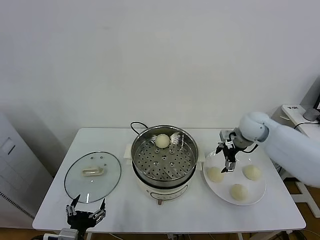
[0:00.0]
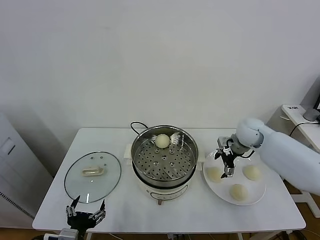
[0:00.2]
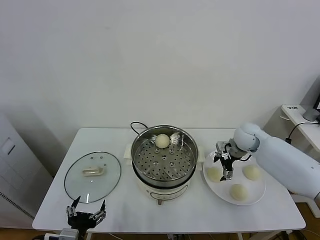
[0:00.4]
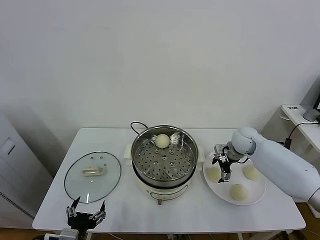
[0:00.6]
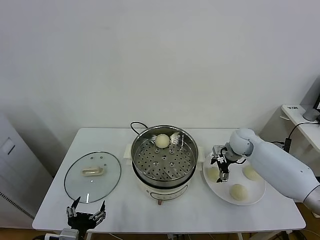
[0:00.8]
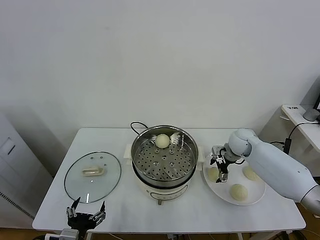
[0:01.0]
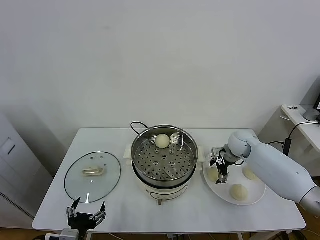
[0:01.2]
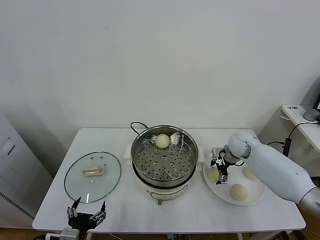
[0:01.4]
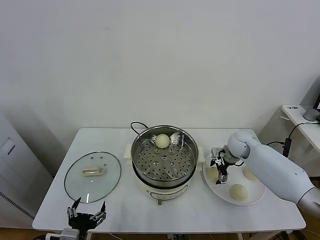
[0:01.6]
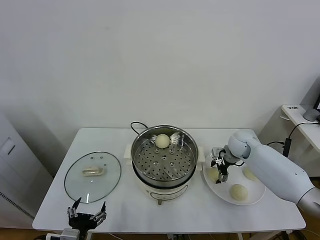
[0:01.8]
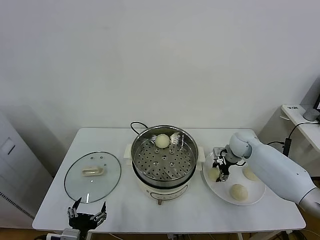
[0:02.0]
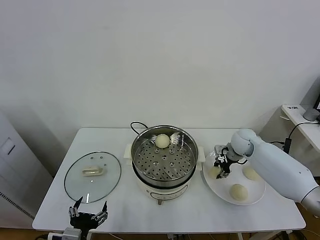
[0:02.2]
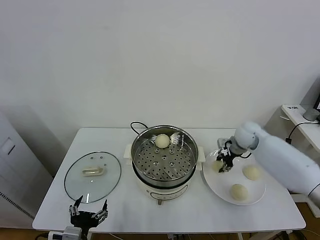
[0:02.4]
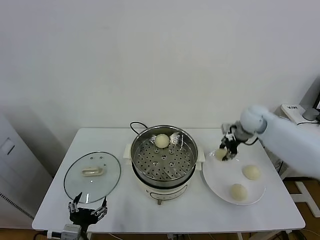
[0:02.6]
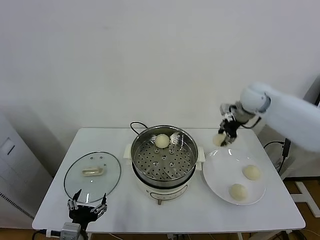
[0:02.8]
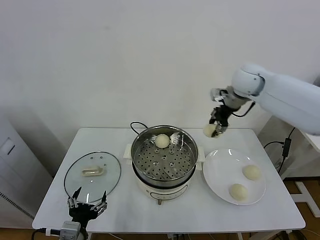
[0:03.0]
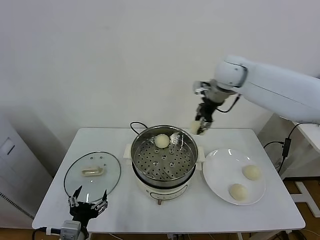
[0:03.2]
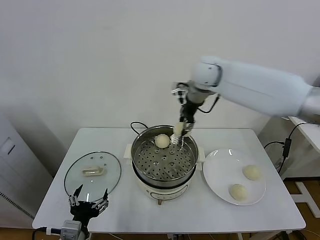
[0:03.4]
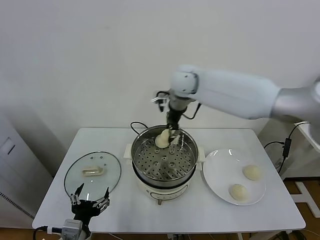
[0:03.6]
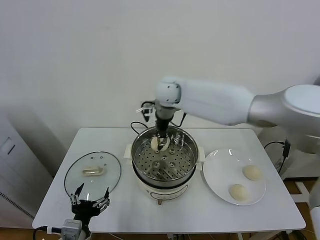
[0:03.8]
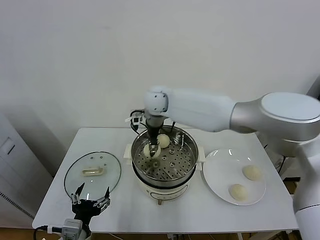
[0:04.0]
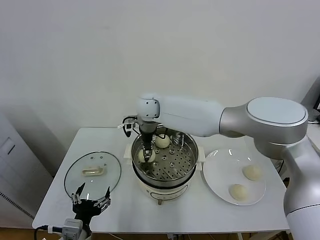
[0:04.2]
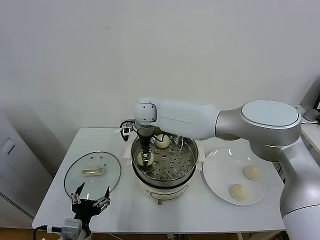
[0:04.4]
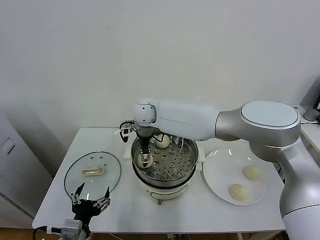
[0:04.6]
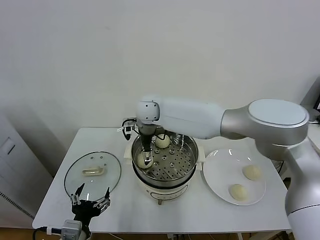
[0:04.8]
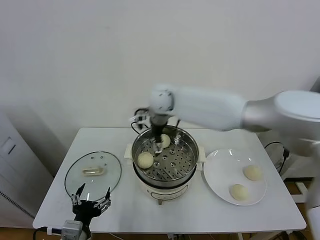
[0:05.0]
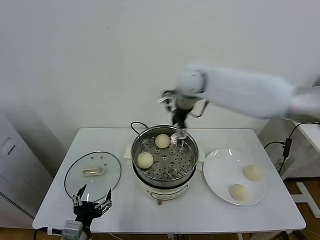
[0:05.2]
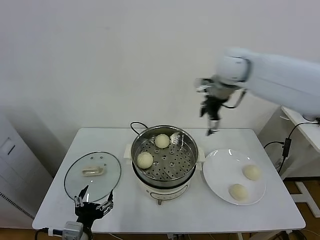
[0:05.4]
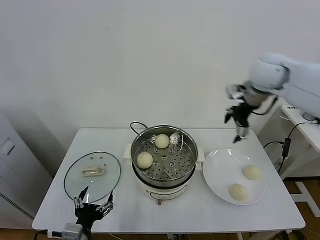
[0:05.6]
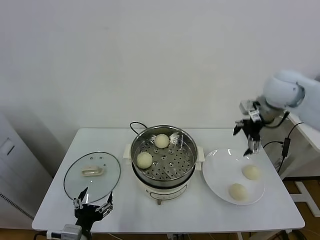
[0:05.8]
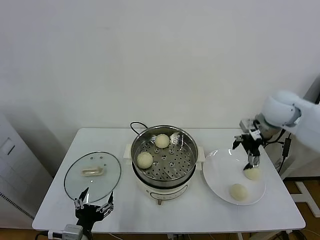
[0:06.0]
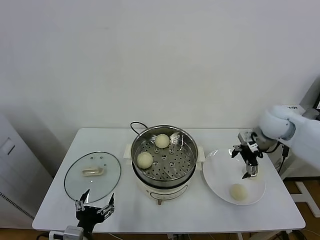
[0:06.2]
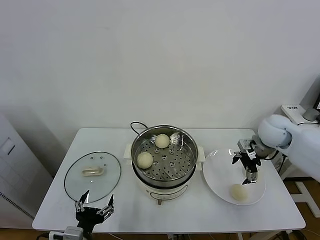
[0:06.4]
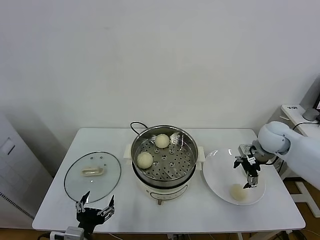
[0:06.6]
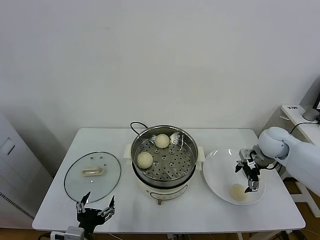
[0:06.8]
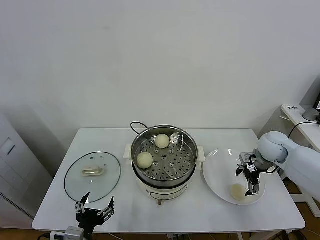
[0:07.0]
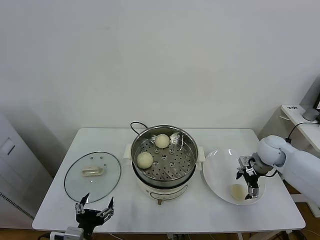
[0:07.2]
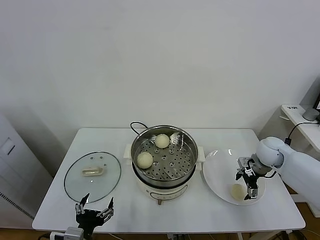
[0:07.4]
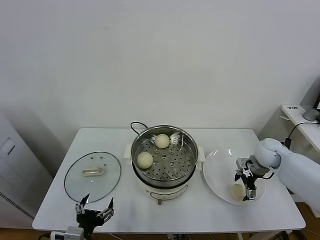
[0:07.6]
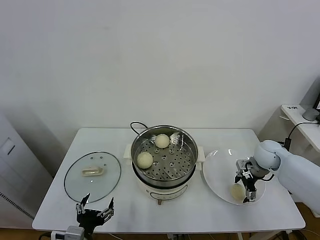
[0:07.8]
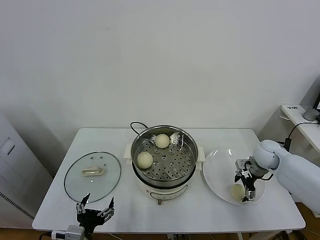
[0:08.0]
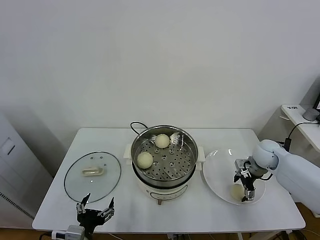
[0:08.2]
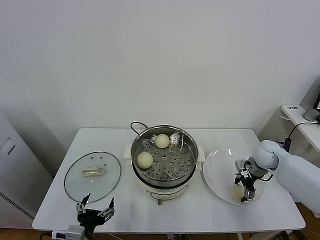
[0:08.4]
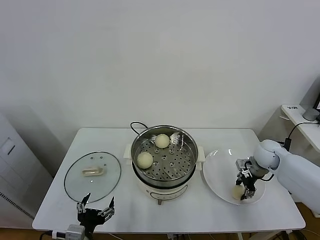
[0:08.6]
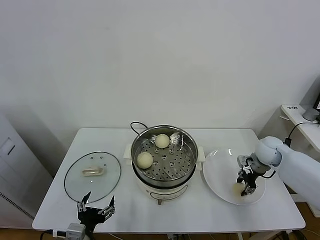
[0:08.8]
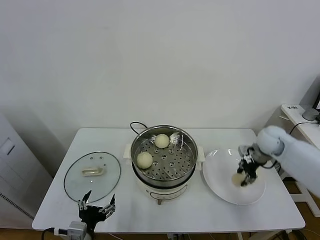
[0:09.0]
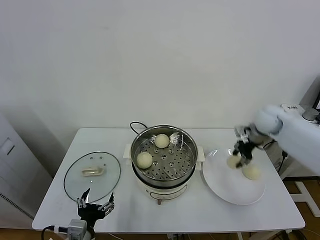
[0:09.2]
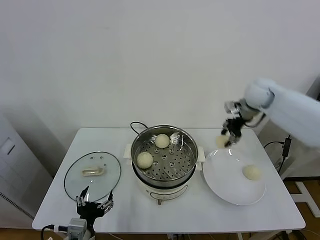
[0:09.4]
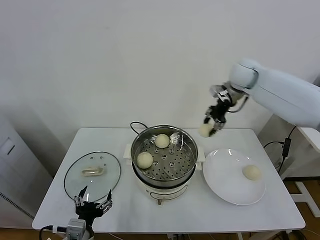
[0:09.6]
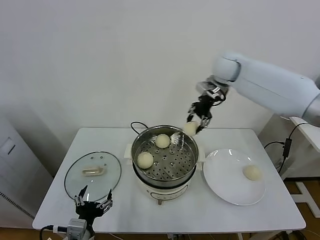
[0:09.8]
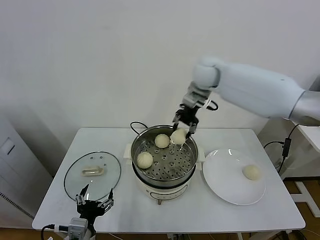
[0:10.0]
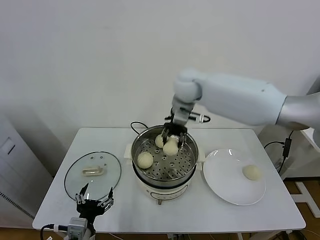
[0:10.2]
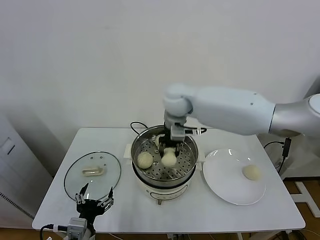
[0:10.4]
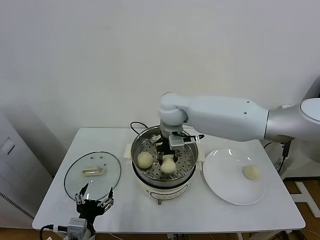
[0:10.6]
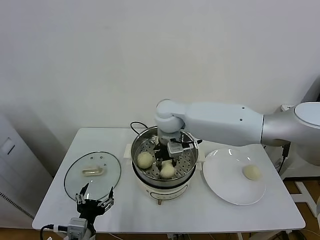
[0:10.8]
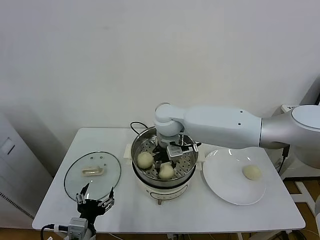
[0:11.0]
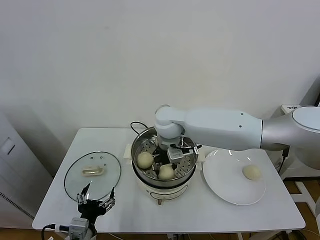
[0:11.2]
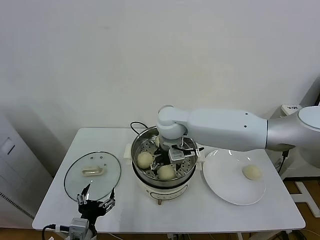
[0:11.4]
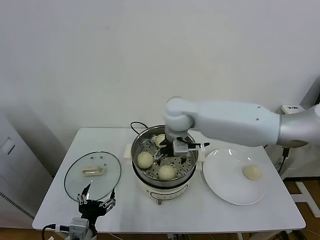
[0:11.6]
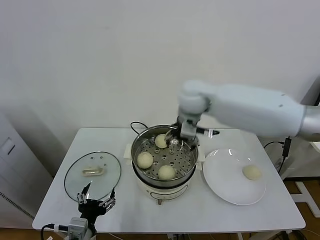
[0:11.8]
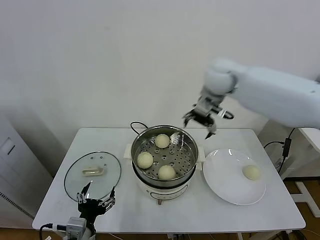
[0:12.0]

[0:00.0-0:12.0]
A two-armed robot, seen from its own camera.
Task of the whole recording: take steamed baozi put them in steamer.
Step, 0.0 to 2.0 s: Grasp the baozi in the plate with right gripper.
Step, 2.4 to 4.8 s: Place the baozi on the steamer with right gripper.
Step, 5.0 to 8.6 s: Grasp the baozi in the plate with right gripper.
Step, 9.0 to 11.6 s: Place the baozi on the steamer with right gripper.
0.0 to 1.6 s: The right gripper moves downward, about 10 cm.
1.6 to 3.0 s: The right gripper is displaced upward by about 30 cm, and closes up.
3.0 to 4.4 s: The right gripper shifts roughly 30 cm to the left and downward, and opens up.
4.4 to 6.0 s: The right gripper goes roughly 40 cm to the right, and opens up.
6.0 to 7.6 s: The right gripper goes roughly 20 cm downward.
7.6 to 9.0 s: The right gripper goes about 5 cm upward, and closes up.
9.0 to 10.4 s: The right gripper moves to the left, roughly 35 cm.
10.4 to 12.0 s: The right gripper is displaced to the right and upward by roughly 15 cm, and opens its fingers.

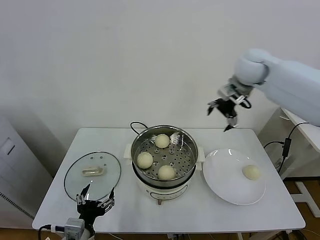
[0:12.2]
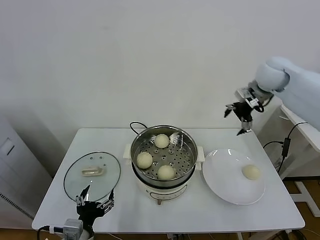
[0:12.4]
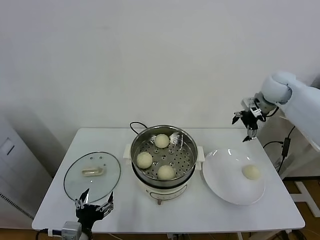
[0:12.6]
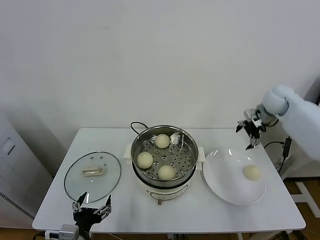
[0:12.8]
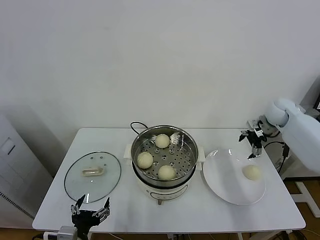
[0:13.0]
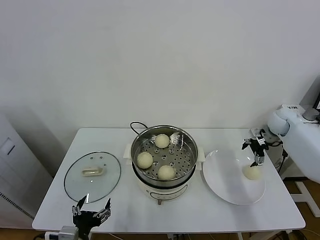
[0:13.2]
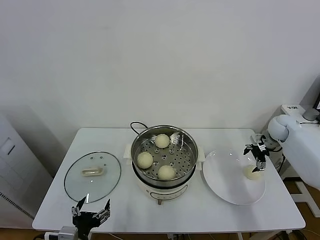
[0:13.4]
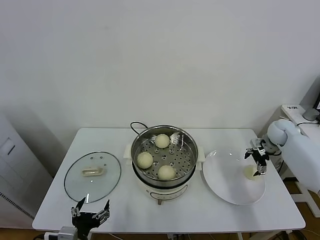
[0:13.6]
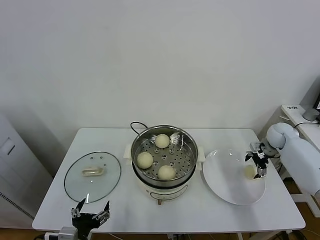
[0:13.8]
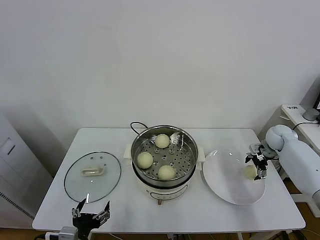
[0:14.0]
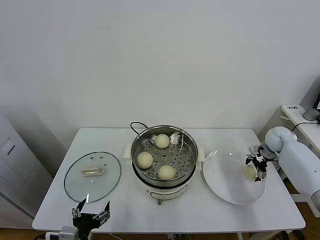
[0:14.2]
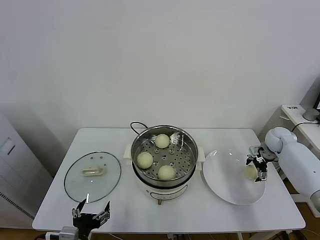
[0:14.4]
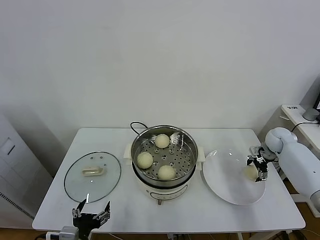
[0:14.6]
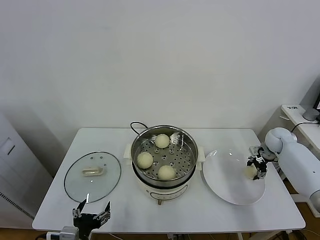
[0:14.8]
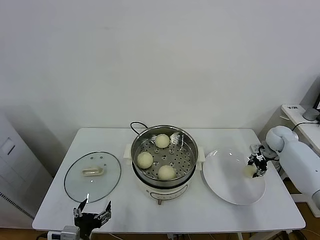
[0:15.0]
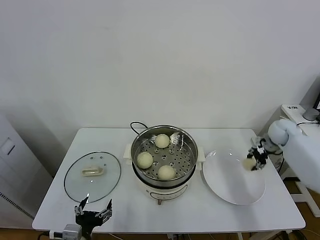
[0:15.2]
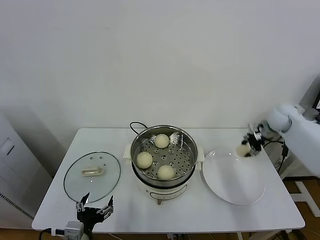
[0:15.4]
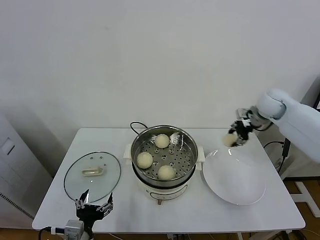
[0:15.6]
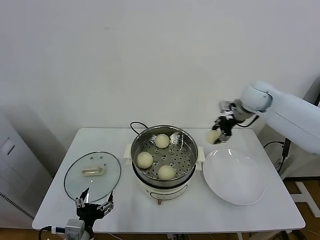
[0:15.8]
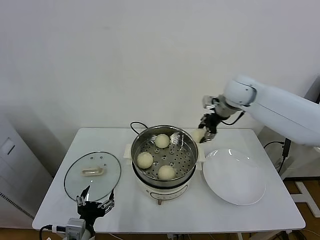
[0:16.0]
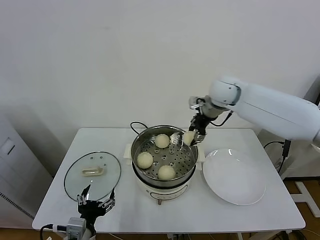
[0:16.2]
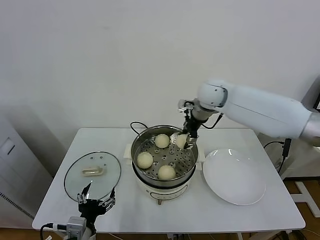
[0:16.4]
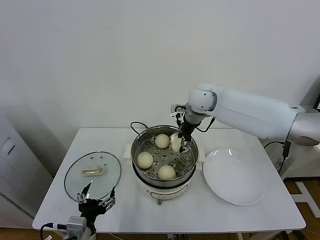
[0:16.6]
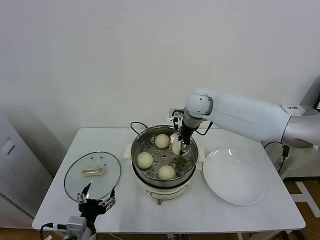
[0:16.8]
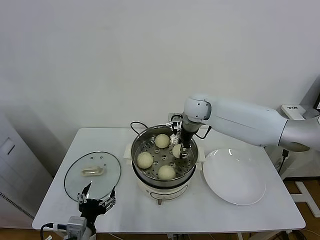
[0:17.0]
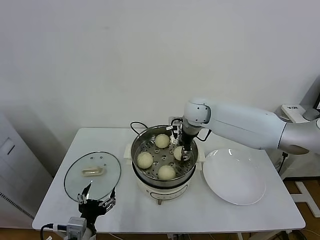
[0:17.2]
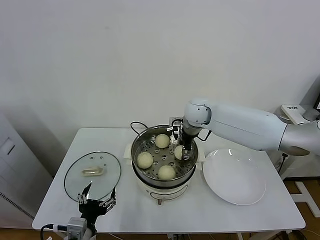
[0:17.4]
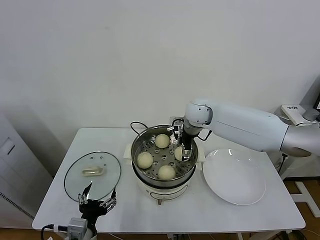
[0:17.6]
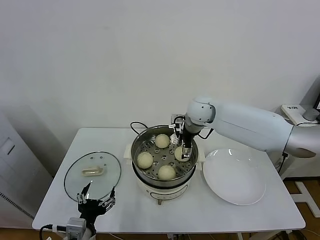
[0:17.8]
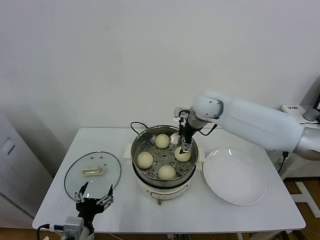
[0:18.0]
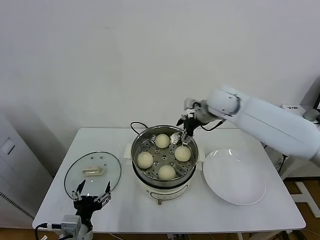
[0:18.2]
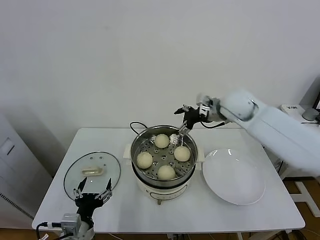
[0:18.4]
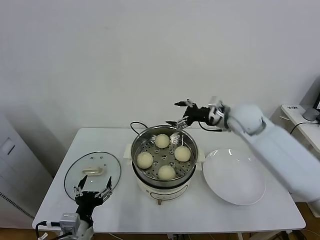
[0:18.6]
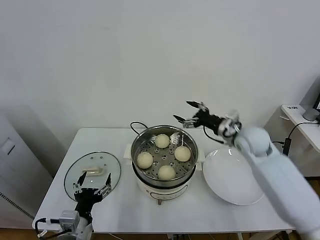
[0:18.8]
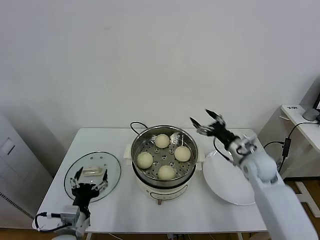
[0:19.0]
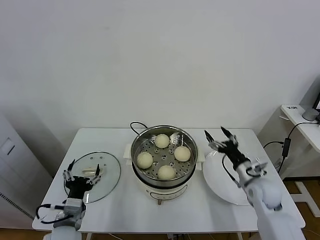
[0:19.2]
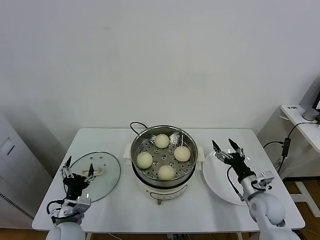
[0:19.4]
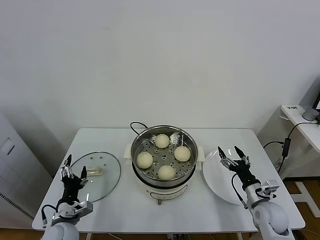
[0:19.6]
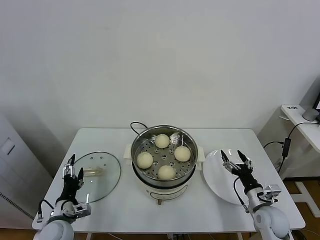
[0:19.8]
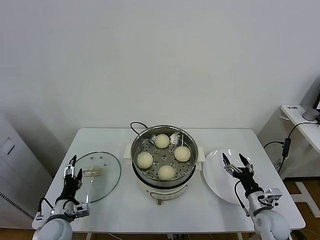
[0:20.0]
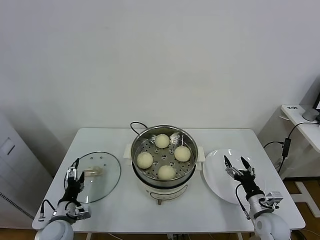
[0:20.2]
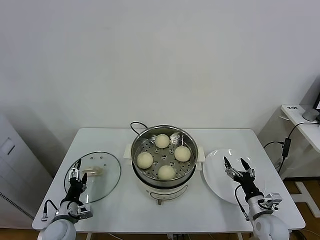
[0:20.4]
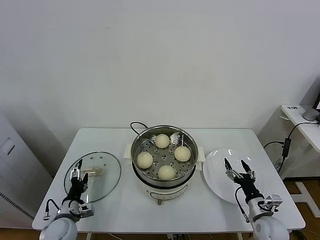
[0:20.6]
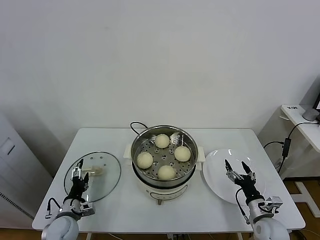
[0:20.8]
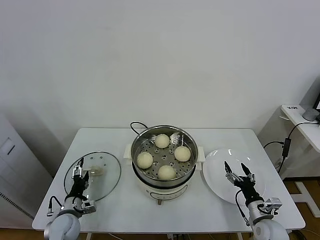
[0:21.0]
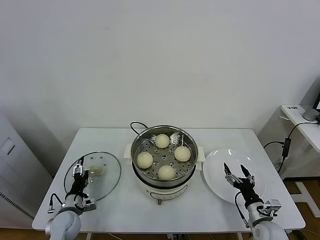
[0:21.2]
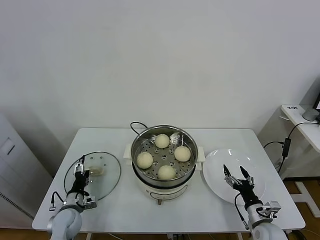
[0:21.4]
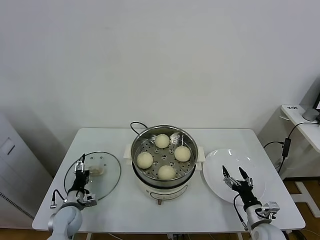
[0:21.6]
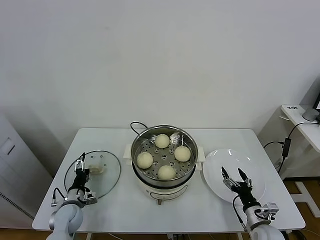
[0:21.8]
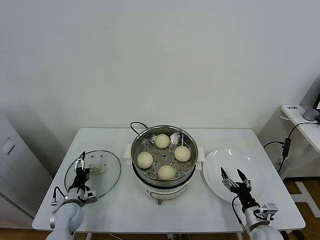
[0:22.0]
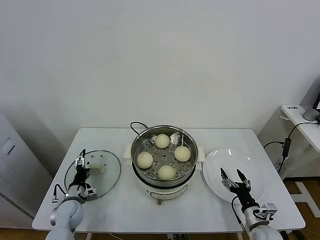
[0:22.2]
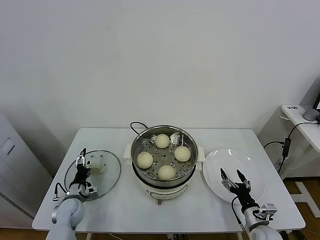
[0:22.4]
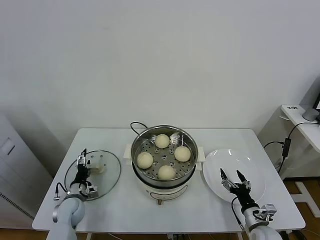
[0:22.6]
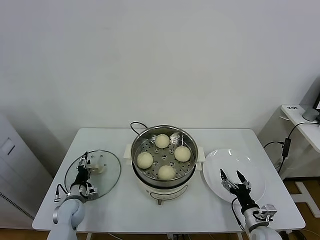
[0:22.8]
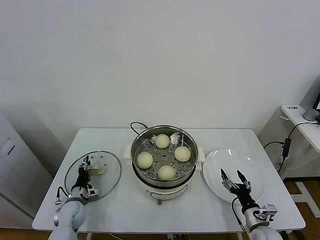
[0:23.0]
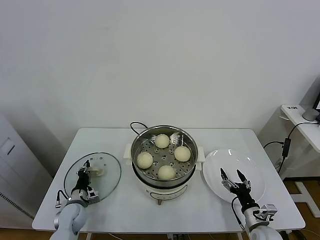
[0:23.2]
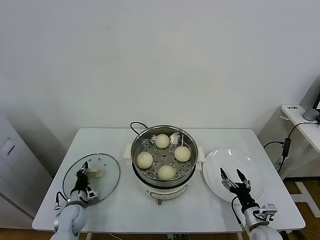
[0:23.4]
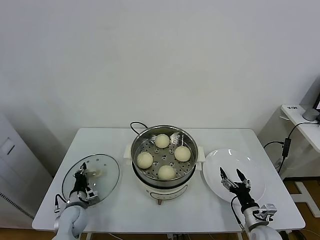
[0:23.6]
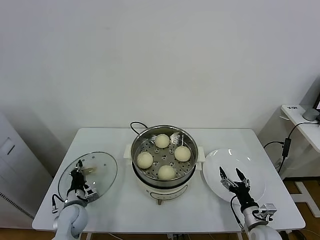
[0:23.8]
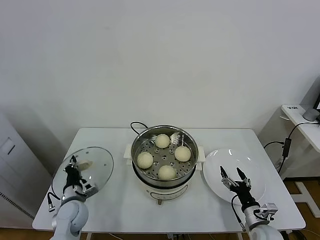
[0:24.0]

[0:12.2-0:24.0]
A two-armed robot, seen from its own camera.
Task of the whole recording: take steamed baozi put them in steamer.
Step, 12.2 to 14.8 s: Grasp the baozi in the plate with right gripper.
Step, 15.2 to 18.0 s: Place the baozi on the steamer with right gripper.
Step, 18.2 to 23.4 s: Grasp the pot lid with left gripper.
12.2 to 13.6 s: The right gripper goes some 35 cm downward and to the right.
13.6 to 15.2 s: The right gripper closes its fingers.
15.2 to 16.6 s: The right gripper goes some 35 cm to the left and upward.
16.6 to 18.2 s: The right gripper travels to the right by roughly 5 cm, and opens up.
18.2 to 19.6 s: The right gripper heads downward, backward and to the right, covering some 40 cm; the left gripper travels forward, downward and to the left by some 10 cm.
19.6 to 21.0 s: The right gripper moves some 5 cm. Meanwhile the left gripper heads downward, covering about 5 cm.
21.0 to 22.6 s: The left gripper shifts some 5 cm forward.
22.6 to 24.0 s: The left gripper heads upward, covering roughly 5 cm, and closes.
